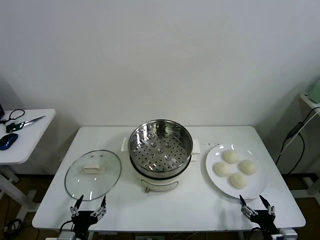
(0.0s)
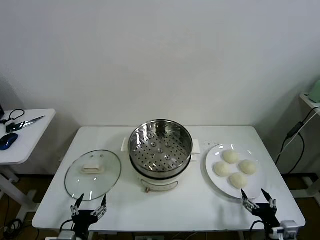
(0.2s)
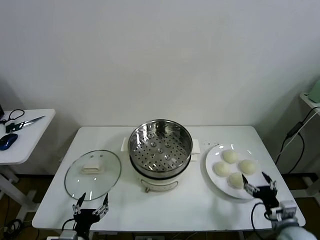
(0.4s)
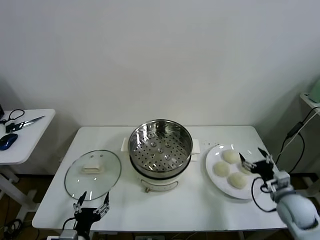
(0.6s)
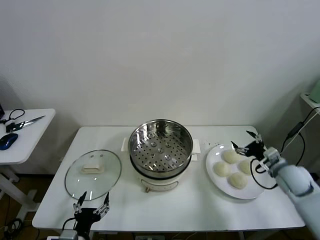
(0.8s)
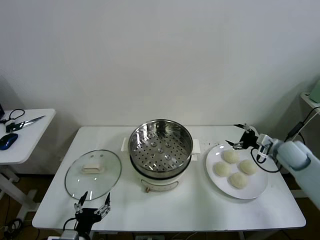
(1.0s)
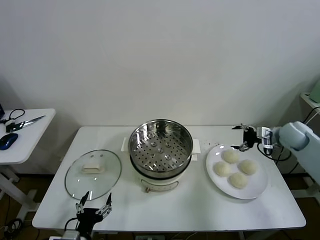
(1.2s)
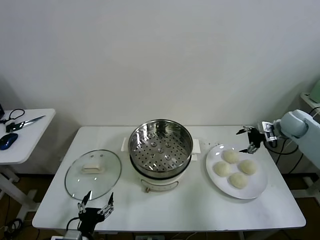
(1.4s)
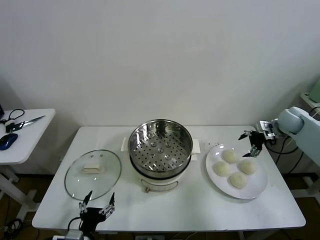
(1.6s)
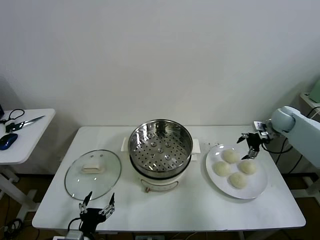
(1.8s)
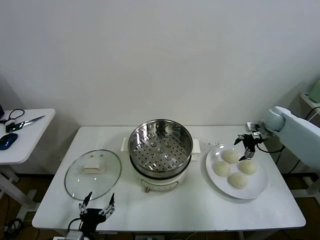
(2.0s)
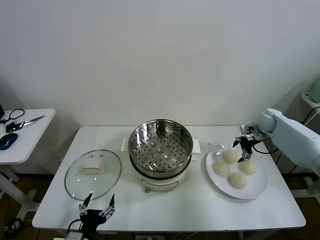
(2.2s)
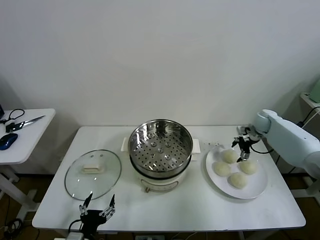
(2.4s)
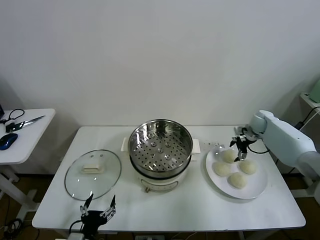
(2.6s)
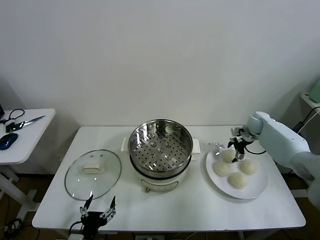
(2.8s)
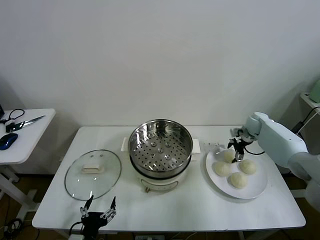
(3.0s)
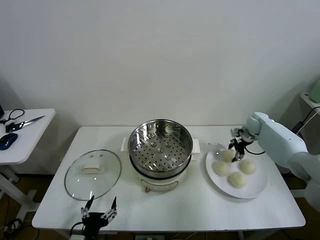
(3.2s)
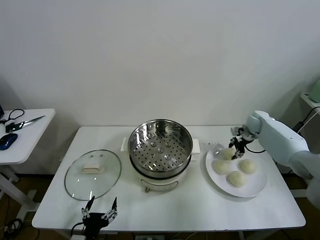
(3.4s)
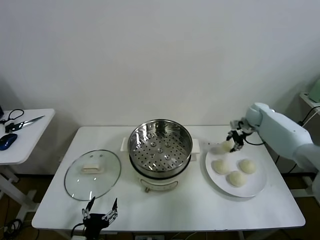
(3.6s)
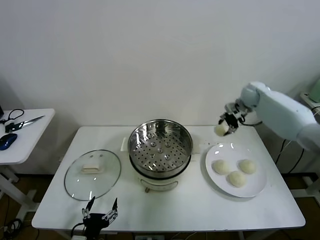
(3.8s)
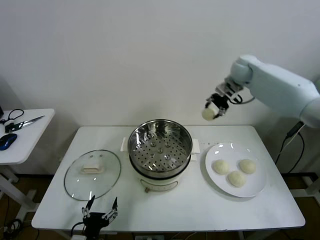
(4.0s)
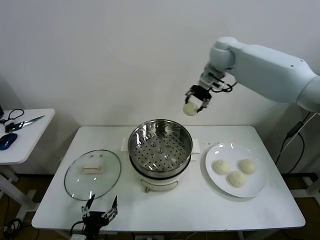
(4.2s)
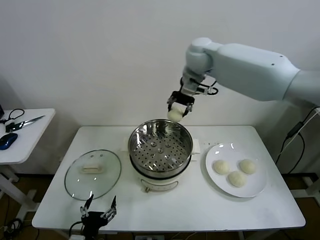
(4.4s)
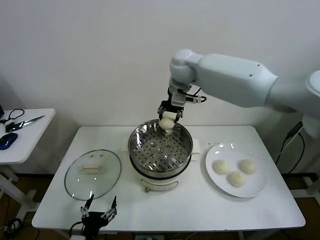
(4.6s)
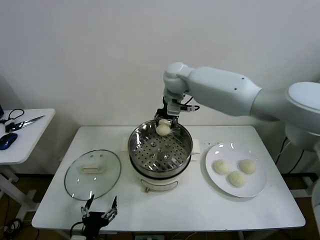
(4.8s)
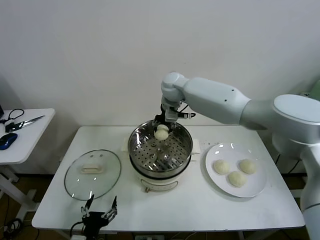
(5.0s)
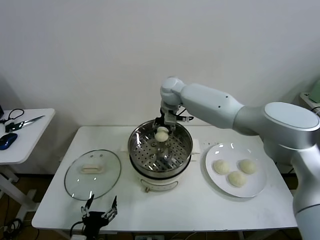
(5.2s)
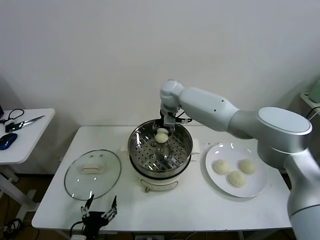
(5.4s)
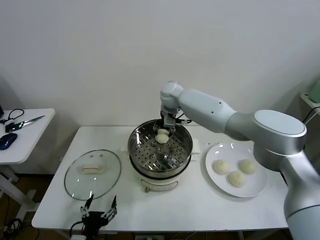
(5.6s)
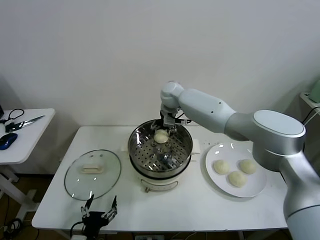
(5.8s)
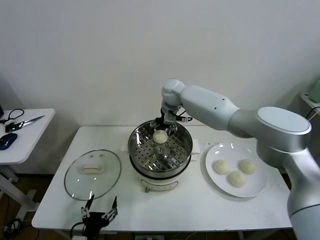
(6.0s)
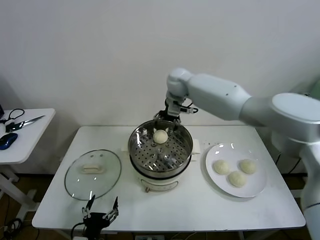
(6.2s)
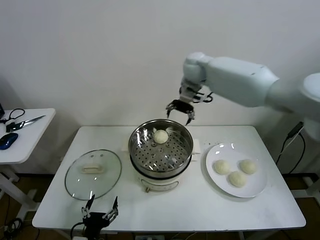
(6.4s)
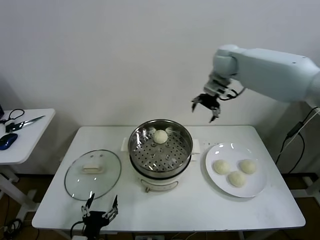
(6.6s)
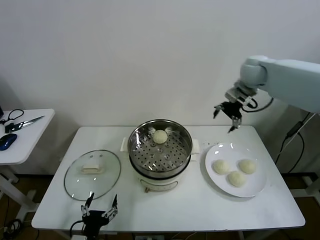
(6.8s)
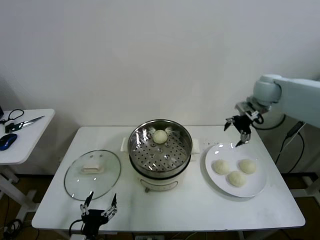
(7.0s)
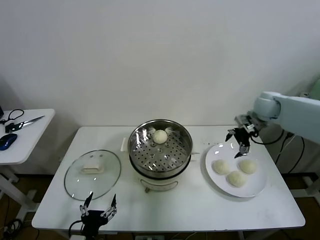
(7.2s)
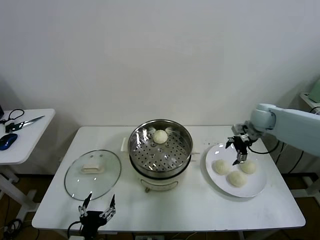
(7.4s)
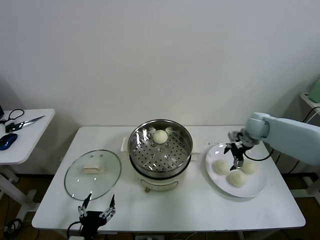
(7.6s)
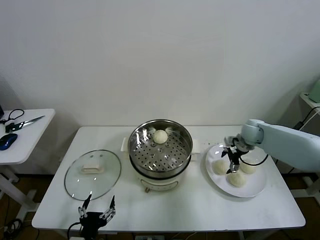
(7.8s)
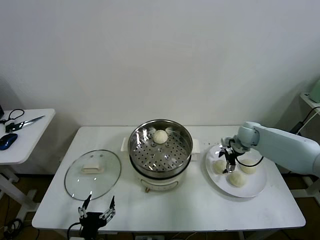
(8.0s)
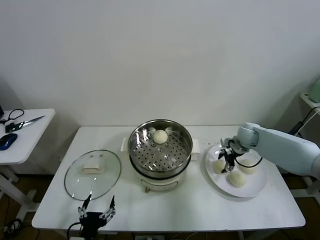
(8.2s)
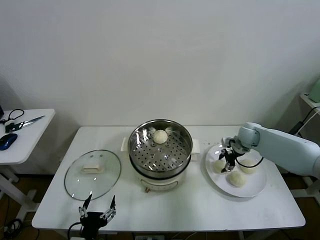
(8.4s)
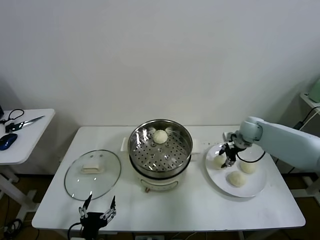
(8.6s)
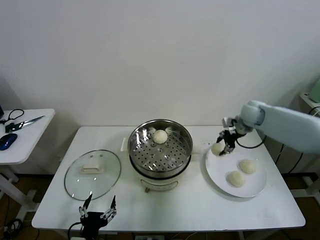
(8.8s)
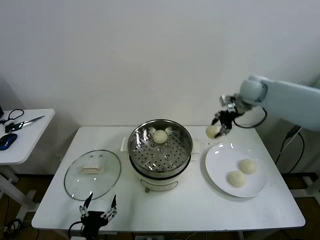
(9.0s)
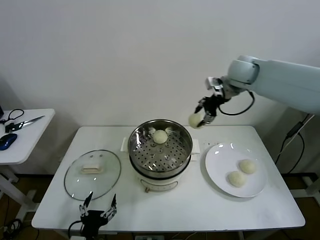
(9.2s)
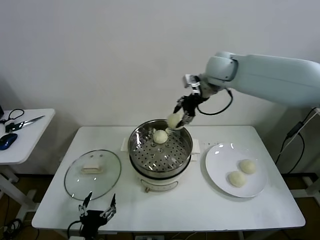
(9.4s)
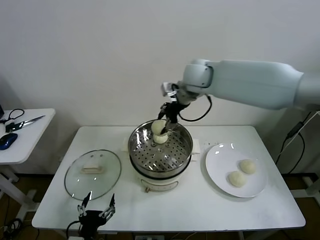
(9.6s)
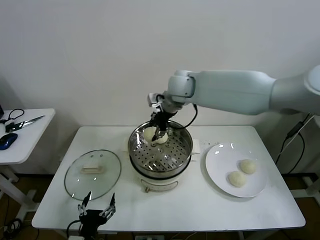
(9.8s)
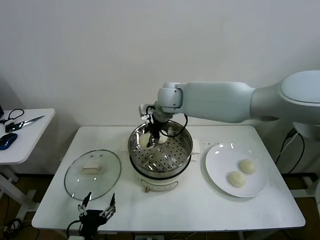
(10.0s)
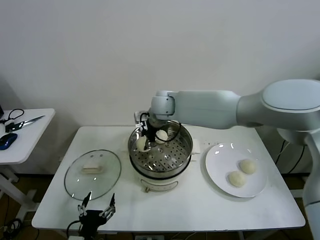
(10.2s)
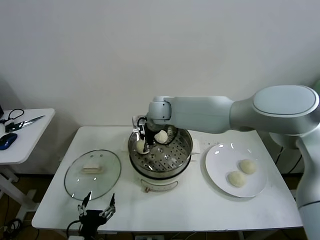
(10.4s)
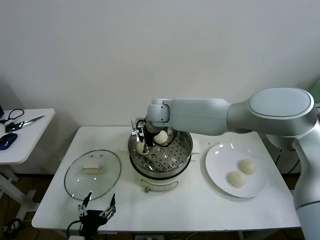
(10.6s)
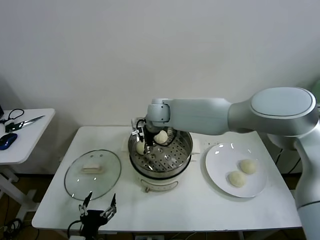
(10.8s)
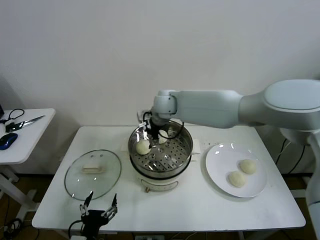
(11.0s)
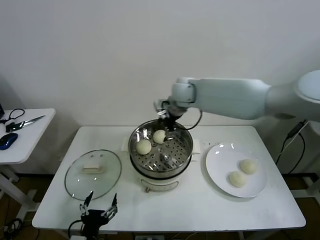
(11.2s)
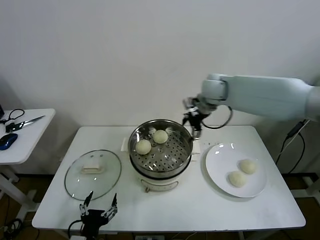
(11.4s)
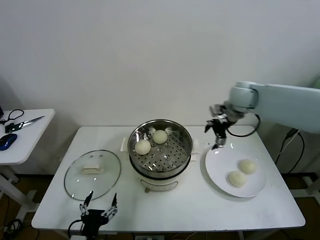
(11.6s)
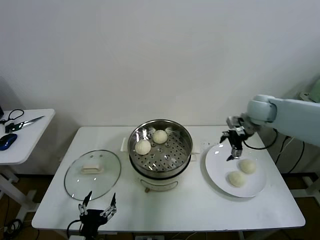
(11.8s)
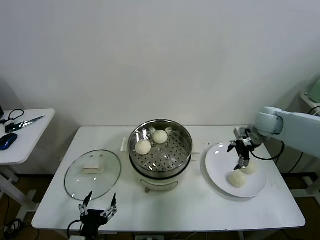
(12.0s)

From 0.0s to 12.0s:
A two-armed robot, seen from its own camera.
Task of the whole recording: take steamed baozi put them in steamer then cover it.
Step, from 0.0s to 3.2s: Grasp the baozi in the plate with right gripper.
Step, from 3.6s to 5.8s: Place the baozi on the steamer with right gripper.
Step, from 6.0s to 8.4s: Grasp the baozi in the plate with right gripper.
Step, from 8.6s to 10.8s: Place the baozi on the steamer with right gripper.
From 1.6s to 3.0s: The right gripper goes roughly 10 cm downward, forward and to the left, and closes.
From 3.0s to 4.4s: The right gripper heads to the left and upward, covering about 40 cm, and closes its fingers.
From 4.4s to 6.0s: The right gripper goes about 10 cm downward, and opens up.
From 6.0s to 7.6s: The right gripper goes some 35 cm to the right and downward.
From 7.6s to 9.0s: The right gripper shifts approximately 20 cm upward, and closes.
From 9.0s to 10.4s: The right gripper heads to the left and downward, covering roughly 30 cm.
From 10.4s to 12.0s: The right gripper moves to the right, approximately 40 cm, and opens.

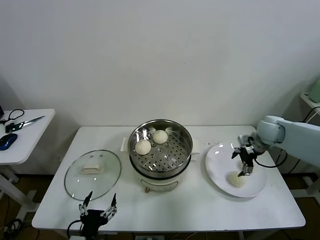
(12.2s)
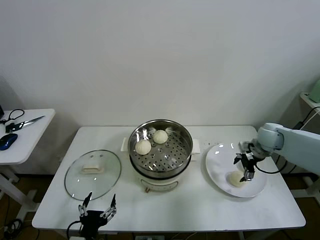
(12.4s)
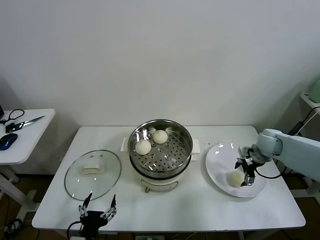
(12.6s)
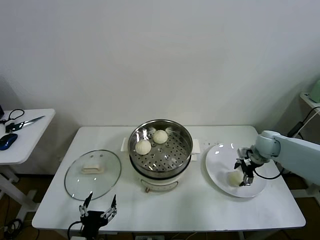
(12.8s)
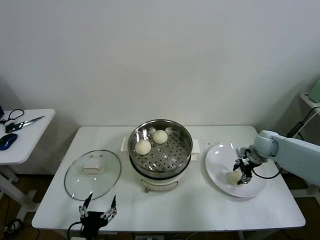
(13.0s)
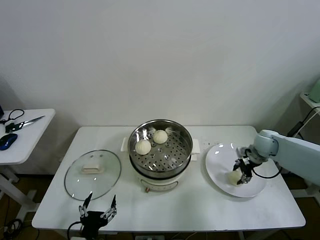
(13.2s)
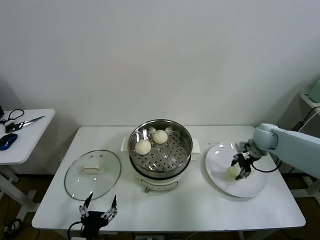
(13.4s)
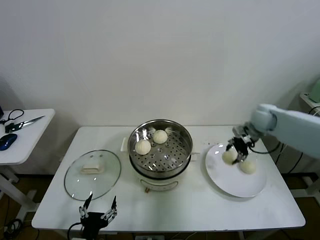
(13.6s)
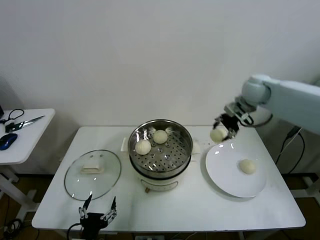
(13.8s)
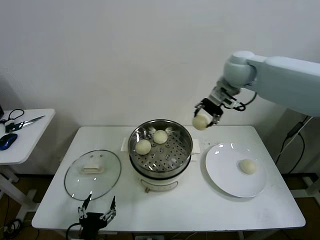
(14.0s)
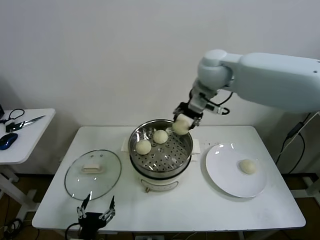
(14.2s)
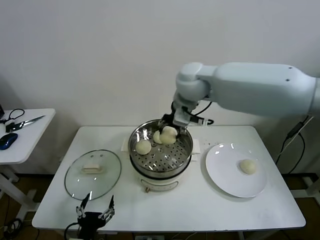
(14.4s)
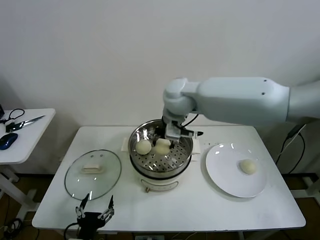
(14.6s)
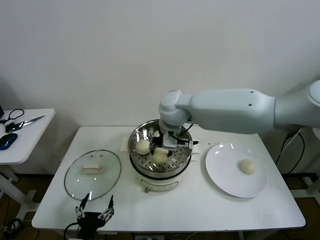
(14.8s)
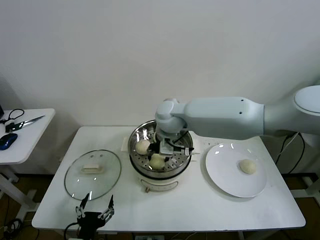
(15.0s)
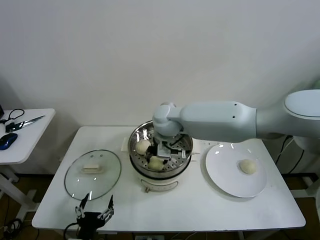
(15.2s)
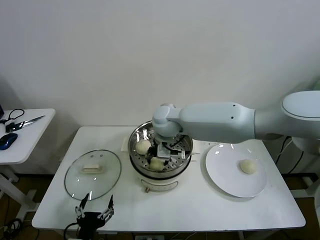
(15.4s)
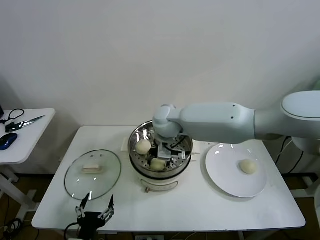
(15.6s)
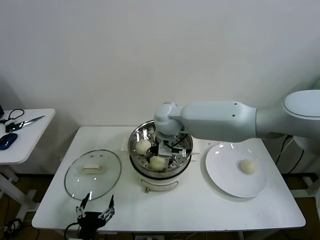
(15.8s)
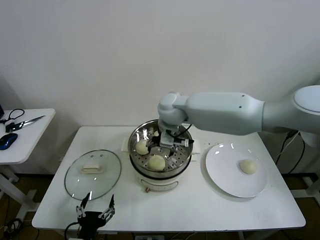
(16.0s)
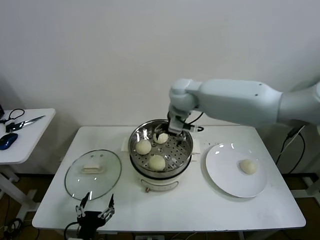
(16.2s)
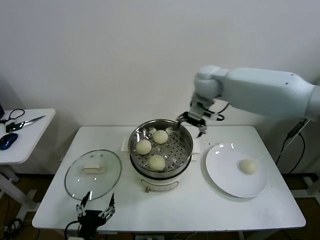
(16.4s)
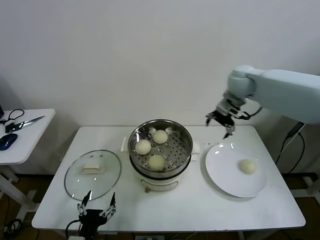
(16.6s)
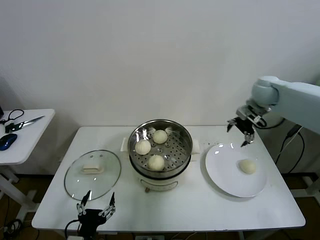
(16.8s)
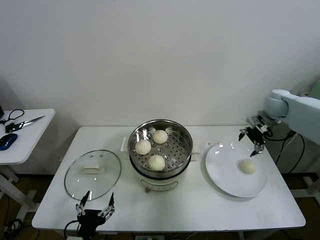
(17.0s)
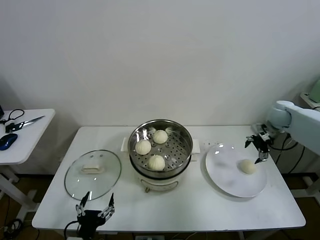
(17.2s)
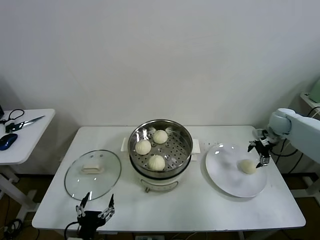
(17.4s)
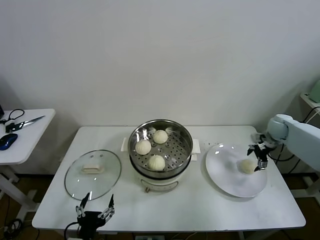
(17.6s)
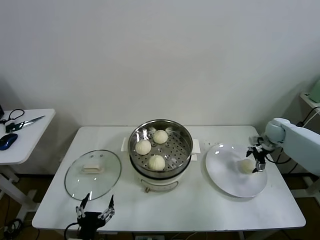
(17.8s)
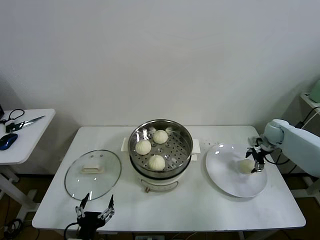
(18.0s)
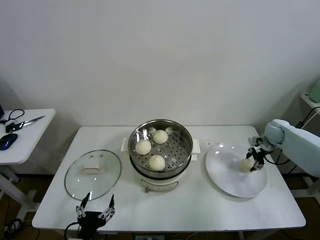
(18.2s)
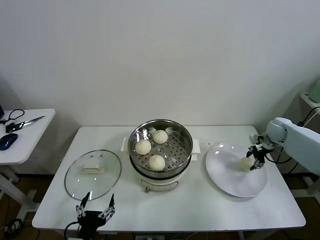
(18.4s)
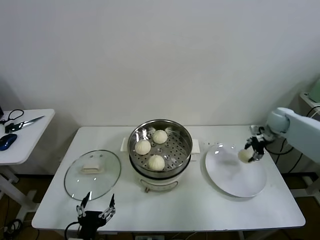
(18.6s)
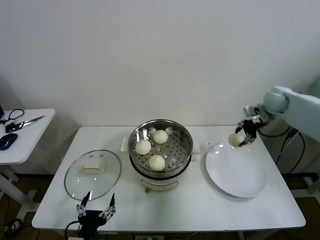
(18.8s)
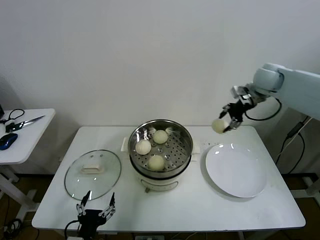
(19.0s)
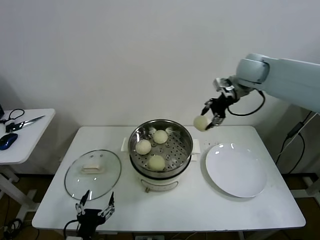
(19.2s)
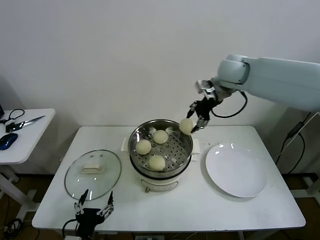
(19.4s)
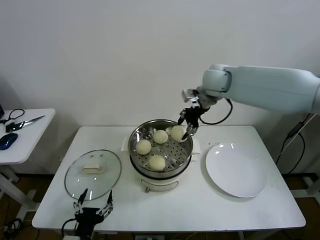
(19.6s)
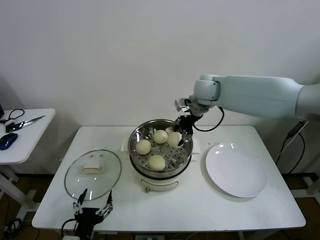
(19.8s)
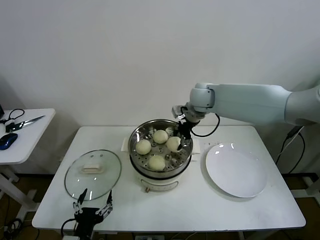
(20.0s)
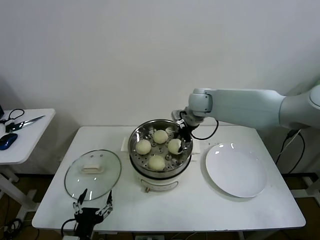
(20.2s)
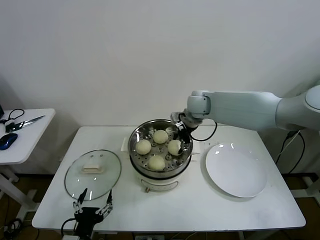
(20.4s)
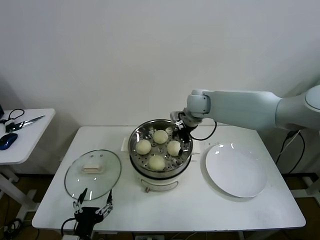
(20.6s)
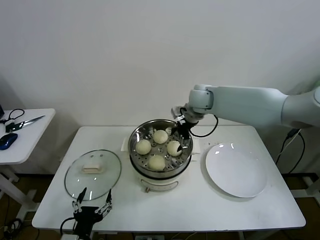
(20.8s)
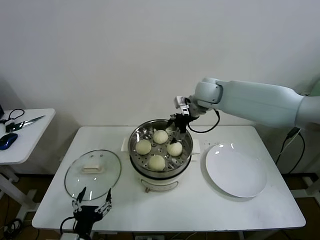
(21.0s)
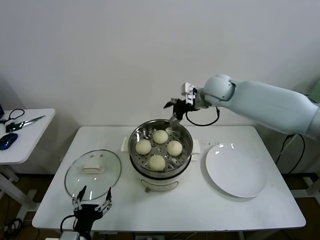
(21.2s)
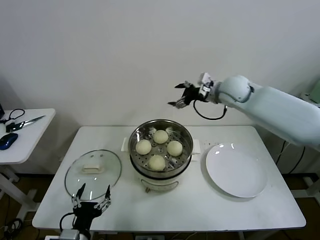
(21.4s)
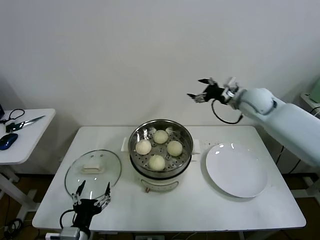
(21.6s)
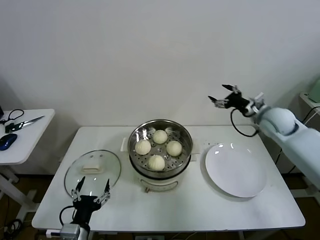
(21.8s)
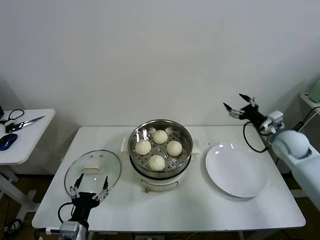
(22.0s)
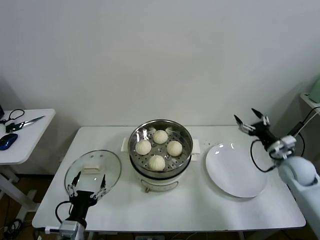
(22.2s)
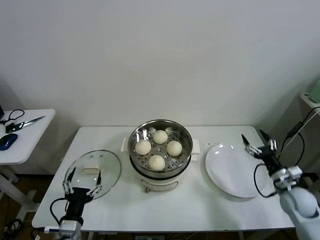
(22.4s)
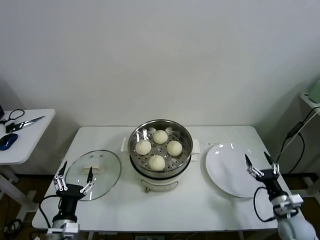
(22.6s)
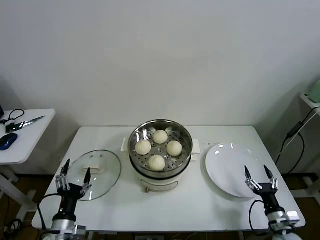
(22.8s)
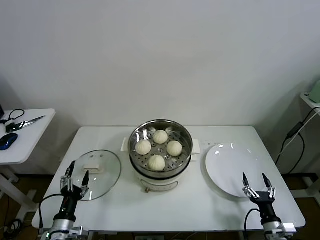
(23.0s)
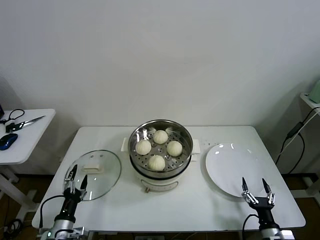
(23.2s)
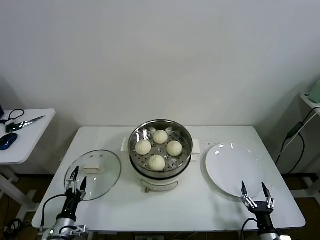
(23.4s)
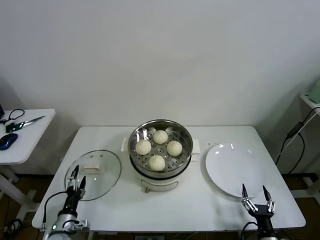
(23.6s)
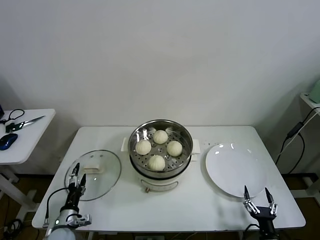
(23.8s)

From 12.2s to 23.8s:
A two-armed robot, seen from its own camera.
Task of the whole recording: take steamed baozi put them in steamer then cover it.
Step, from 13.2s to 15.8s: Place the baozi on the steamer with right gripper.
Step, from 16.0s to 18.2s: Grasp the baozi in the plate with right gripper.
Step, from 18.4s to 20.4s: Place the baozi on the steamer with right gripper.
From 12.2s to 13.6s: The right gripper heads upward and forward, covering some 10 cm, and closes its fingers.
From 13.6s to 15.0s: The right gripper moves to the left, approximately 30 cm.
From 15.0s to 16.6s: The right gripper goes about 25 cm to the right, and opens its fingers.
From 16.6s to 18.0s: The right gripper is displaced downward and to the right by roughly 25 cm.
From 18.0s to 19.4s: The right gripper is displaced to the left and upward by roughly 35 cm, and closes.
From 19.4s to 21.0s: The right gripper shifts approximately 5 cm downward, and opens up.
From 21.0s to 22.4s: The right gripper is displaced to the right, downward and backward by some 50 cm. The left gripper changes place by approximately 5 cm.
From 22.4s to 23.8s: The left gripper travels downward, to the left and forward by some 15 cm; the right gripper goes roughly 25 cm backward, downward and to the left.
